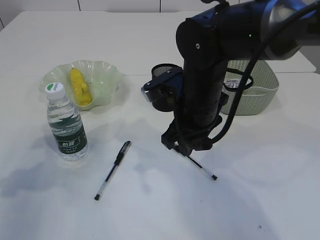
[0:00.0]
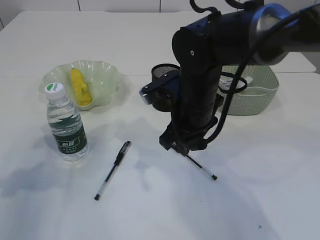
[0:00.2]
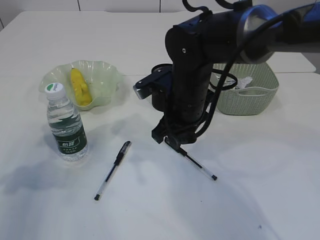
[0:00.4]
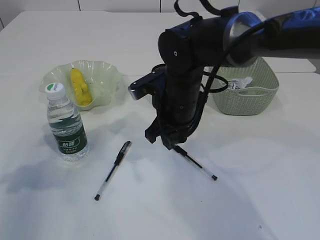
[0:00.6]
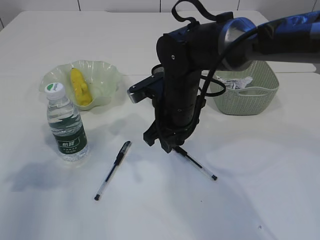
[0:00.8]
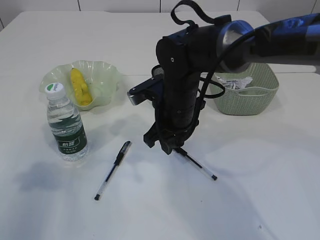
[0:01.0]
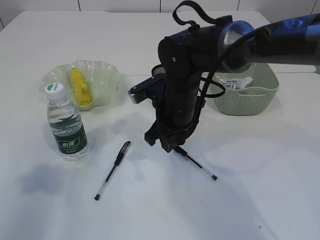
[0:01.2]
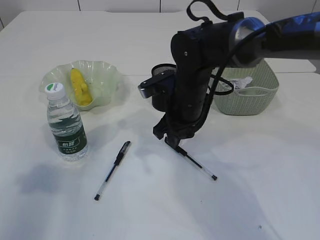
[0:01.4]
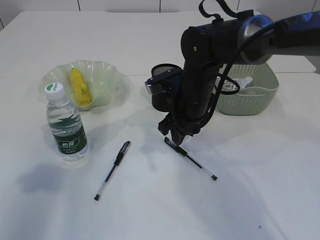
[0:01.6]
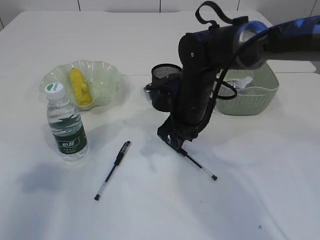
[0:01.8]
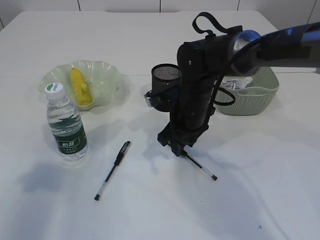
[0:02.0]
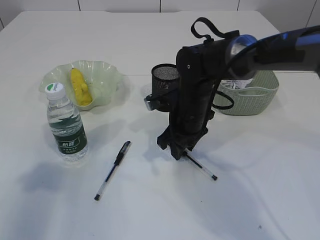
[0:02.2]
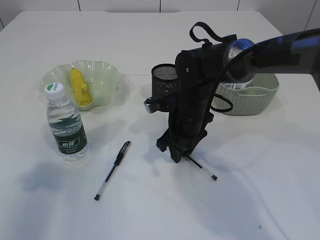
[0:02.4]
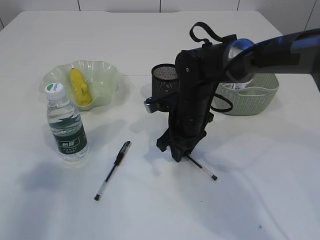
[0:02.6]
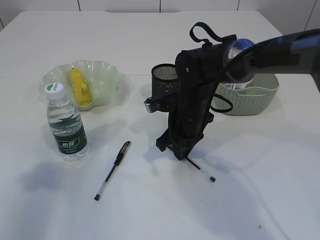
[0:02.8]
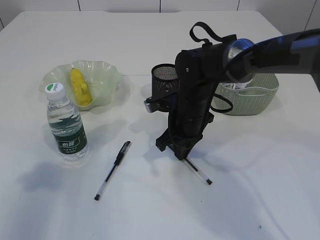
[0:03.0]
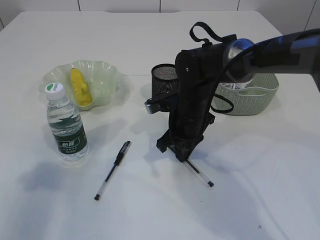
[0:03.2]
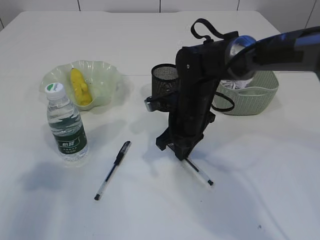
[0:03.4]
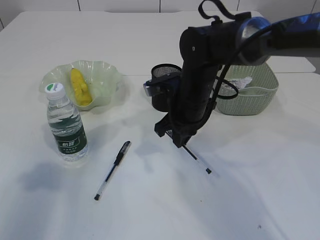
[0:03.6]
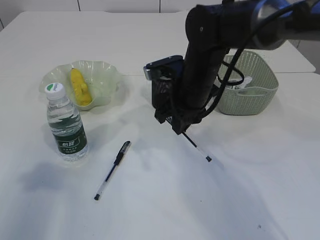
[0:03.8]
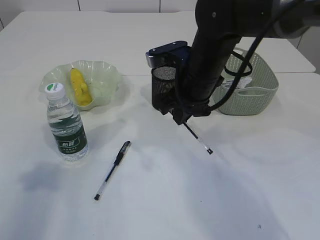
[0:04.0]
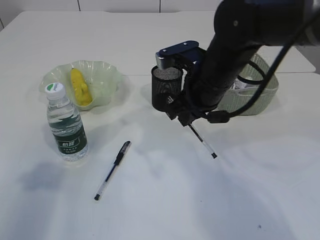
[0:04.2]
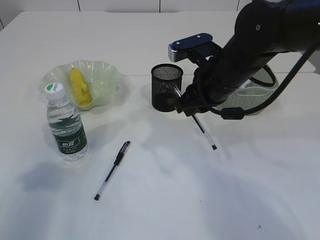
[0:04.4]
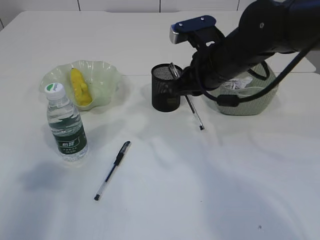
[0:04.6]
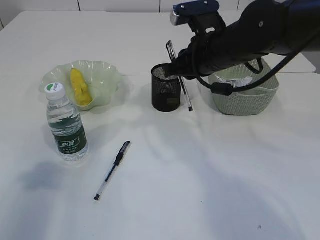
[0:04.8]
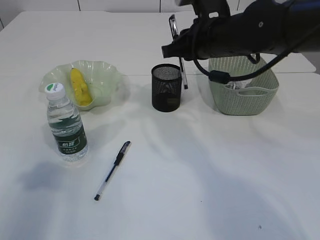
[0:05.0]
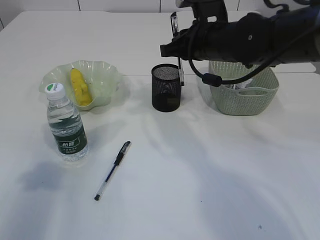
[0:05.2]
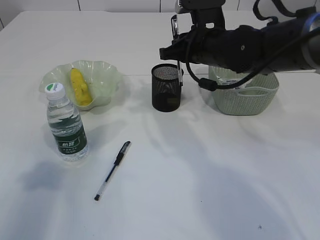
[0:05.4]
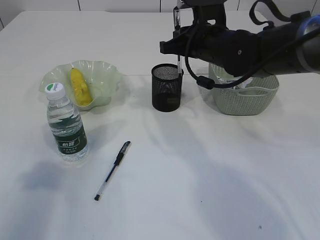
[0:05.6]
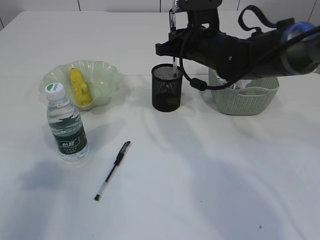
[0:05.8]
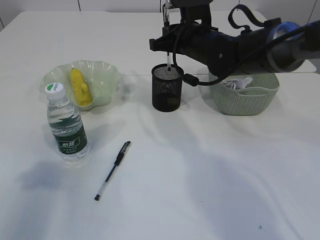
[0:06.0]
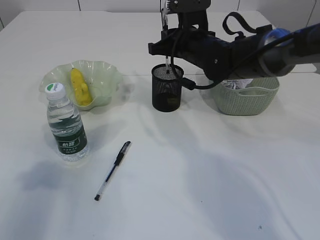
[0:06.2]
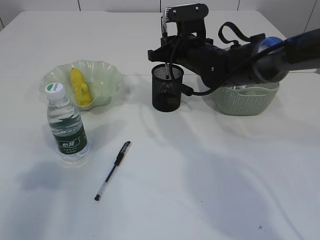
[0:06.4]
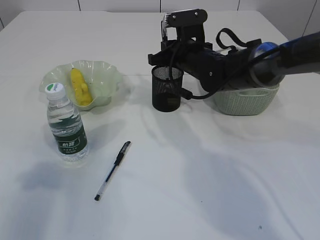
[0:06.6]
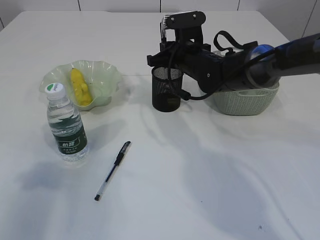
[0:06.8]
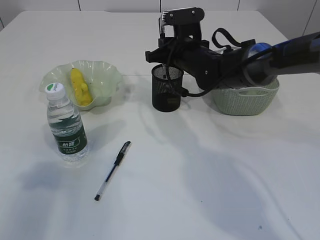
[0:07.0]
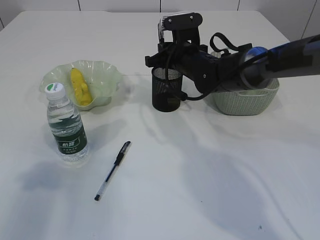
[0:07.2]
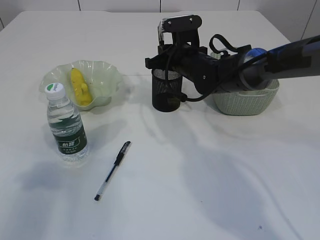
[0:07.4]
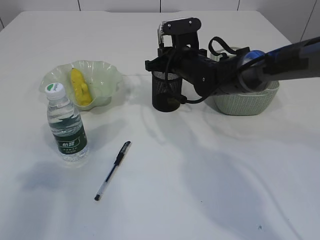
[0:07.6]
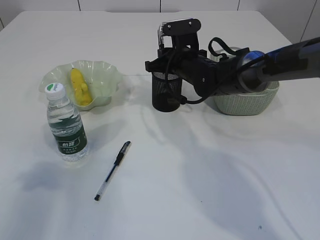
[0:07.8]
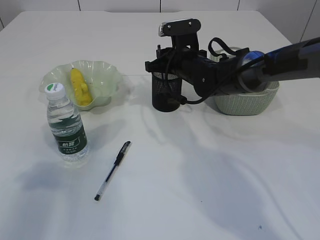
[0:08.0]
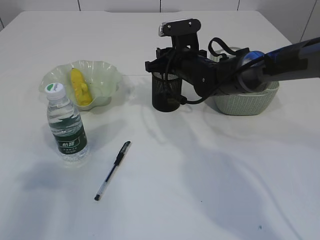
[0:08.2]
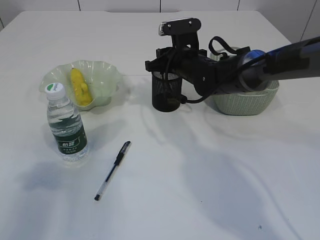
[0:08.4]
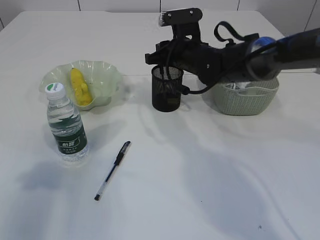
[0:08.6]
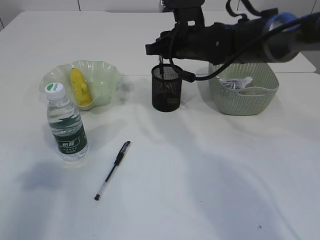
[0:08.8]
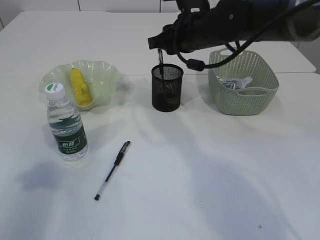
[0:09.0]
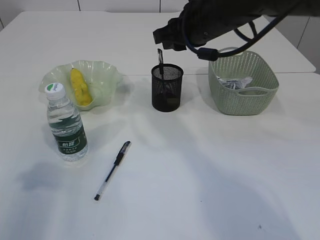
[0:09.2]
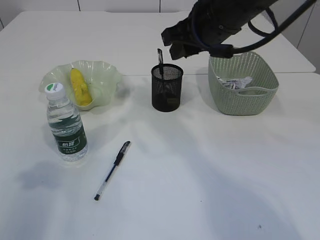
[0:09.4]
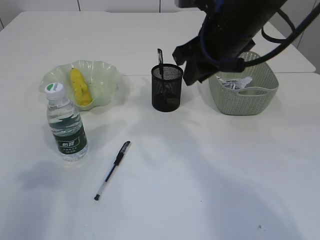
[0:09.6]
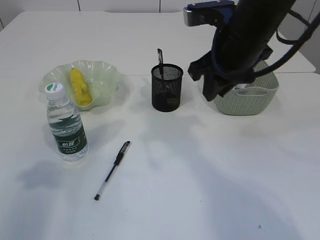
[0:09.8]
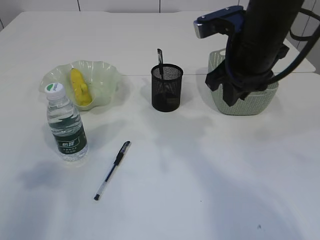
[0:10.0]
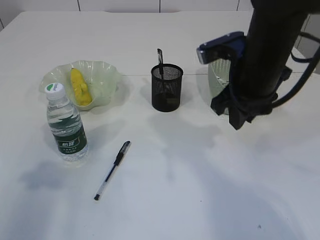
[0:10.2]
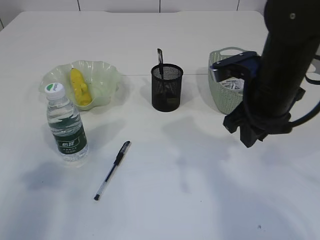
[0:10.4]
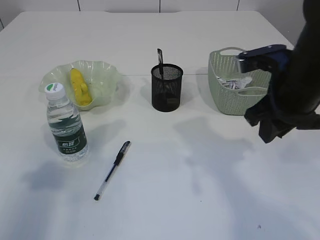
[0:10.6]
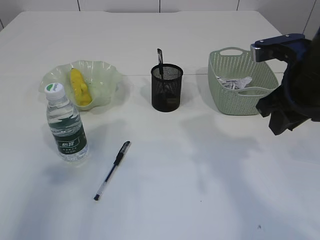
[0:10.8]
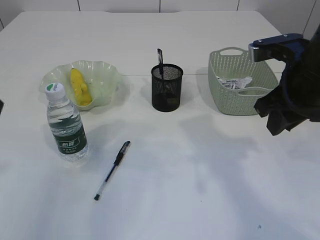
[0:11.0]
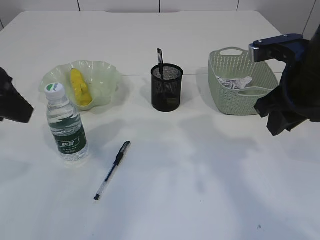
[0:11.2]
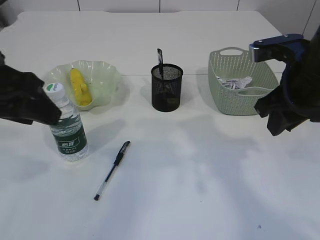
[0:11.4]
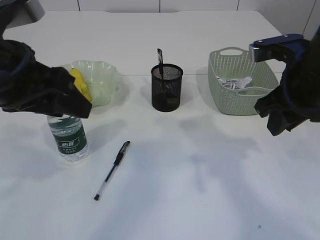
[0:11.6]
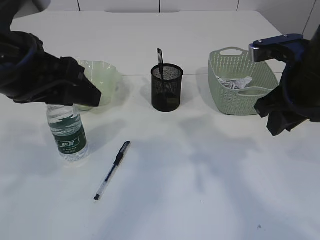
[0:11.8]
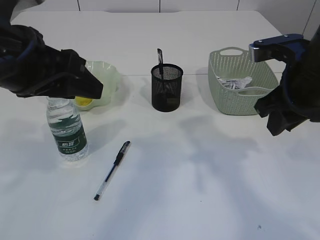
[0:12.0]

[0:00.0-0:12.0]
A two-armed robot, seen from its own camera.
Step, 0:00.0 to 0:03.8: Pick up the pen with right arm.
Step, 0:04.0 to 0:08.8: Place the pen into the pen holder.
0:00.0 to 0:01.6: The left gripper is displaced upward by some 5 cm. Meanwhile the right gripper goes approximately 5 cm forward.
0:01.6 to 0:03.0: The right gripper closes.
0:03.0 to 0:04.4: The right gripper shifts roughly 10 cm upward.
0:04.4 to 0:06.0: The right gripper is displaced forward by approximately 10 cm.
0:06.0 to 0:07.6: The right gripper heads downward, covering about 5 cm.
0:07.6 to 0:09.0: The right gripper goes roughly 10 cm upward.
0:09.0 to 0:10.4: The right gripper goes some 15 cm backward and to the right.
0:10.4 to 0:12.0: The right gripper shifts by some 5 cm. Meanwhile the left gripper heads to the right, covering some 15 cm.

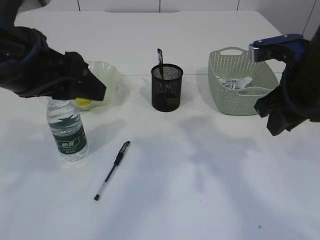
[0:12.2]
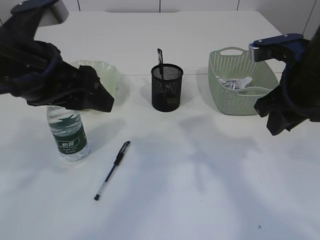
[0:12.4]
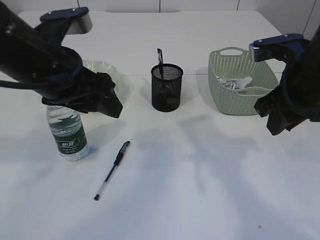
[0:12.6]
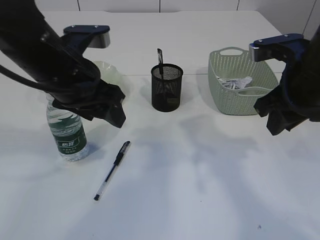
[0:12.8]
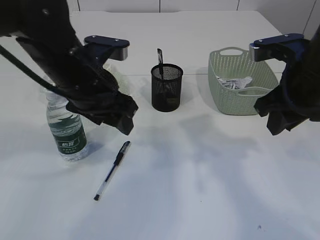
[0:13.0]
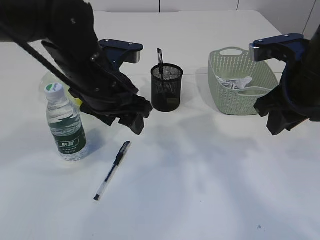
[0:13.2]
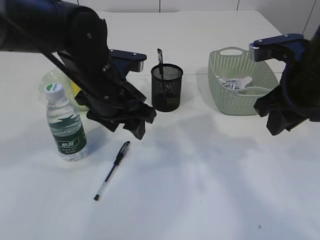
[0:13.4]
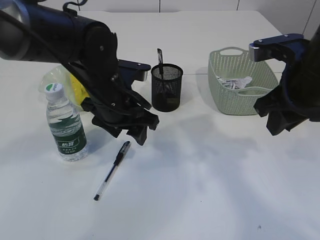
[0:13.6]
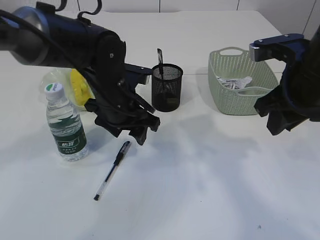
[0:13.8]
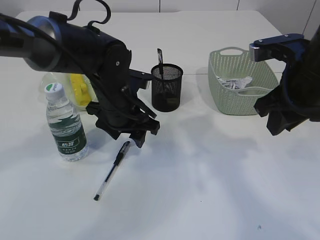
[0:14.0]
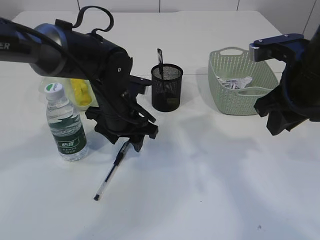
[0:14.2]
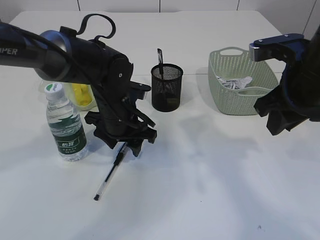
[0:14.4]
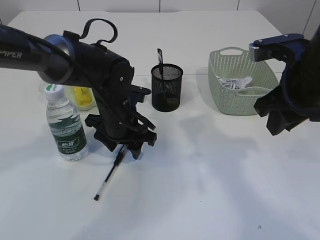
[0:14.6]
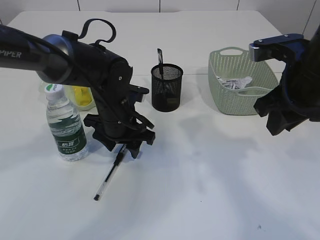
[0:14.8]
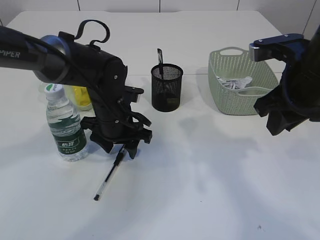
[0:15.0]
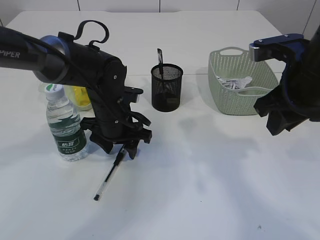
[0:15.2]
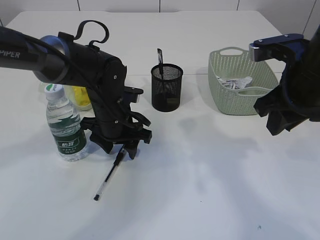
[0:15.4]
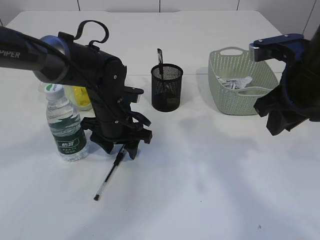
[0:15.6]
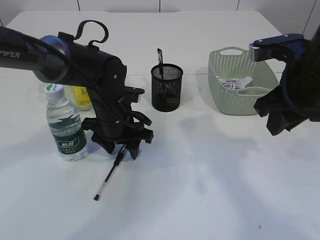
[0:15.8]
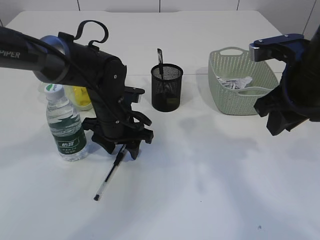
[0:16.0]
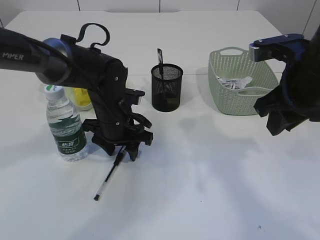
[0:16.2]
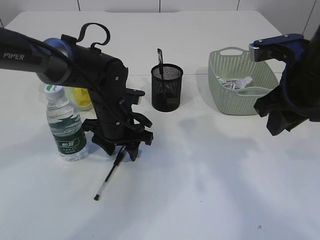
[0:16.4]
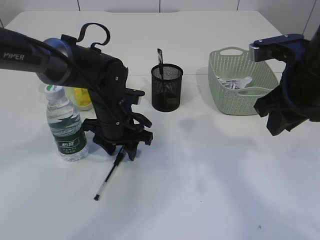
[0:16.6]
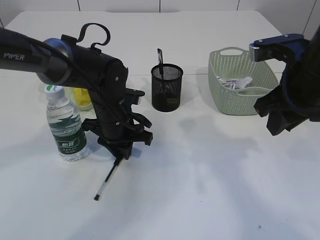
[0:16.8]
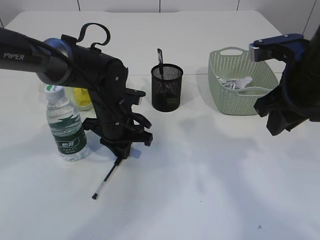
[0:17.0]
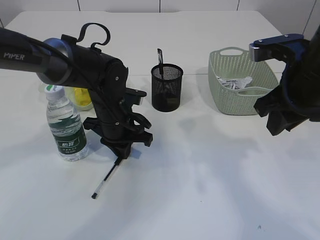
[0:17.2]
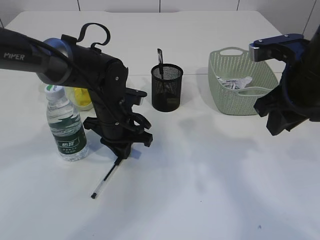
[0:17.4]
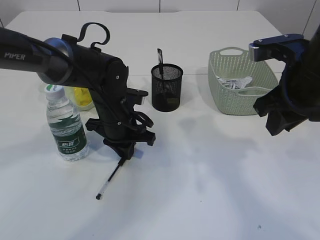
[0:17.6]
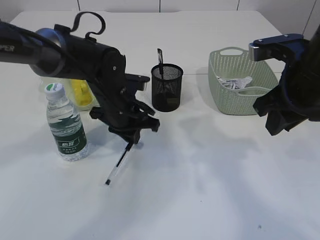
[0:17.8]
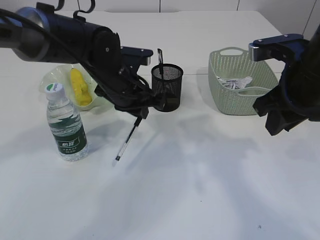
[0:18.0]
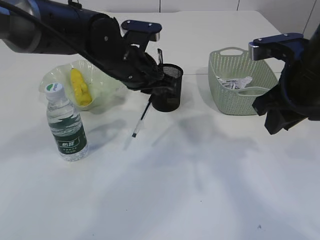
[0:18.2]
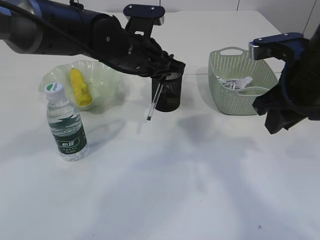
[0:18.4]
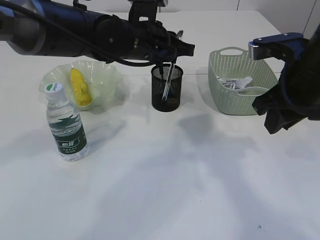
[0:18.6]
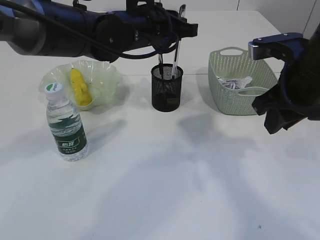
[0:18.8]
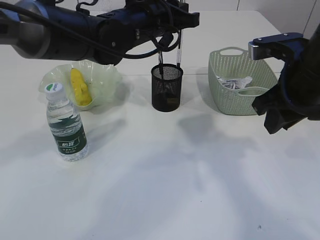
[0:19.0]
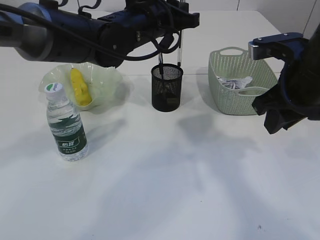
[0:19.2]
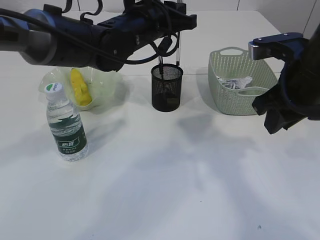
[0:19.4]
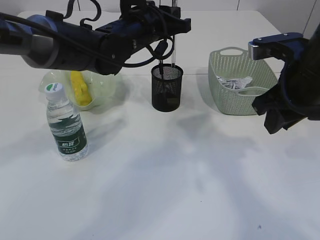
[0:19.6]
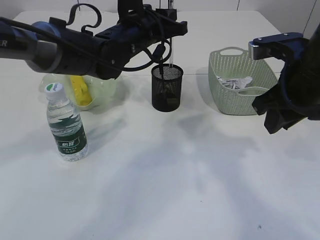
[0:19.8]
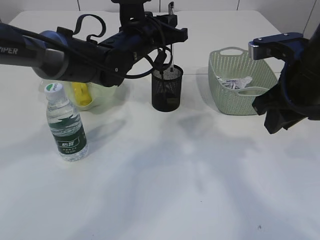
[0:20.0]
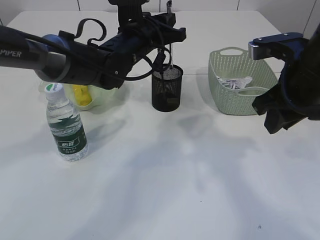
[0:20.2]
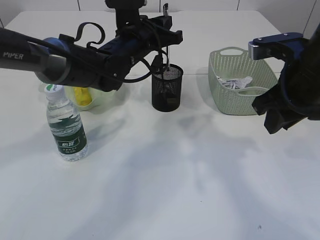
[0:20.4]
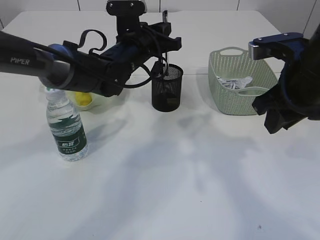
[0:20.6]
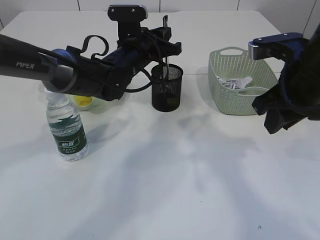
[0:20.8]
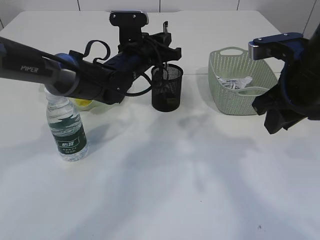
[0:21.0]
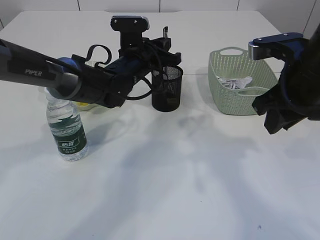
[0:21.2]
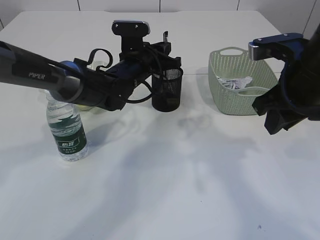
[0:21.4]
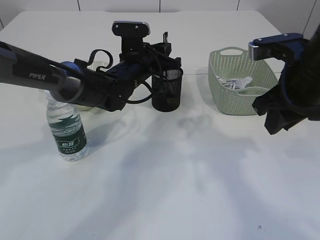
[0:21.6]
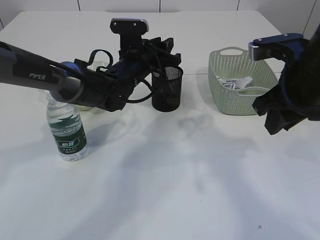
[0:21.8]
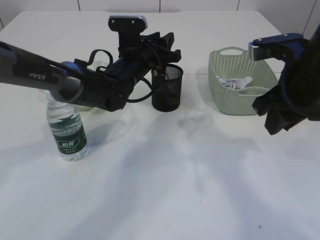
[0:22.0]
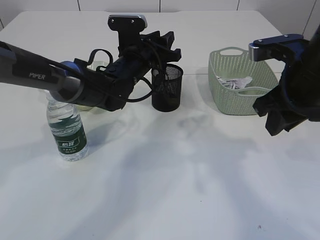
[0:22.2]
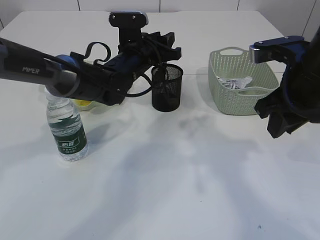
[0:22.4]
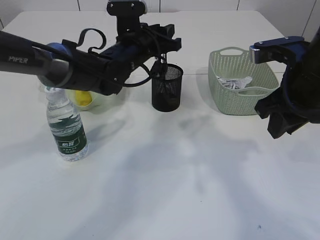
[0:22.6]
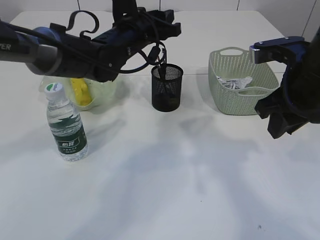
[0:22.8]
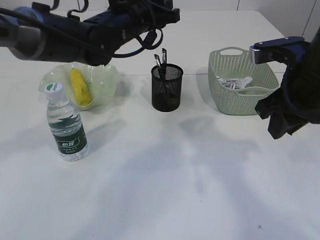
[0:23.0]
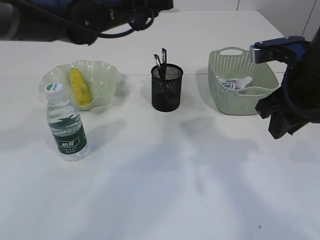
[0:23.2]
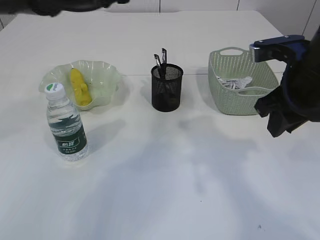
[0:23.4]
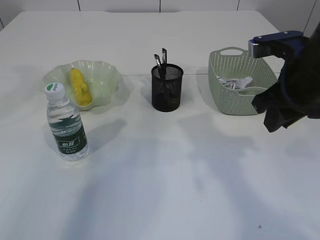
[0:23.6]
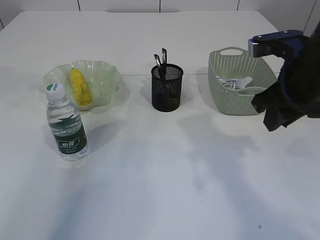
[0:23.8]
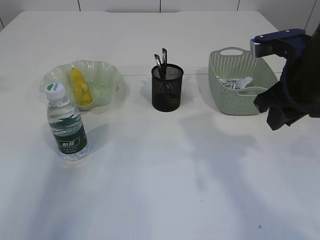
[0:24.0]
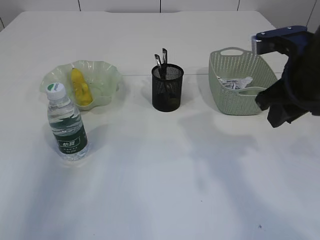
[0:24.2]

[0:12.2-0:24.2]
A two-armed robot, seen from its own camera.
Step, 0:12.2 to 0:18.0: Pick up the pen with left arm.
Step, 0:18.2 to 0:22.6: Place the pen into the pen holder.
0:12.2 to 0:13.8: The left gripper shifts approximately 20 cm downward, forward and to the right.
0:13.8 to 0:15.2: The left gripper is displaced downward by about 5 cm.
0:15.2 to 0:16.6: Neither gripper changes place.
0:16.6 to 0:18.2: The left gripper goes some 10 cm upward, and closes up.
0:18.2 to 0:19.8: The left gripper shifts by about 5 cm.
0:19.8 to 0:21.2: The left gripper shifts about 5 cm downward.
0:21.2 to 0:22.6: The left gripper opens up.
0:22.6 to 0:24.2: The left gripper goes about 35 cm to the left and upward.
